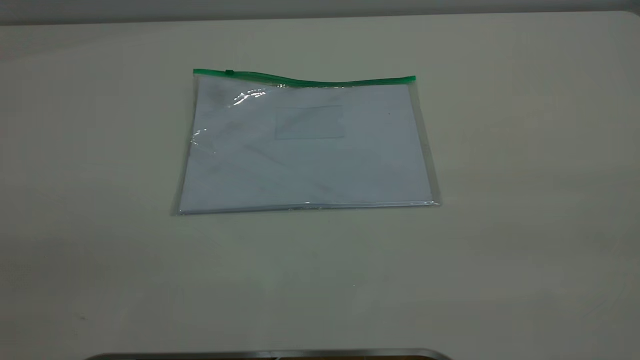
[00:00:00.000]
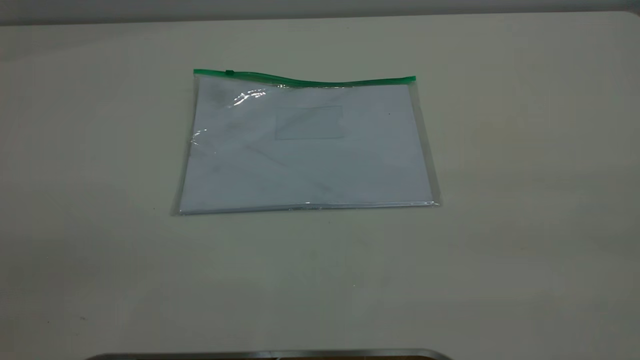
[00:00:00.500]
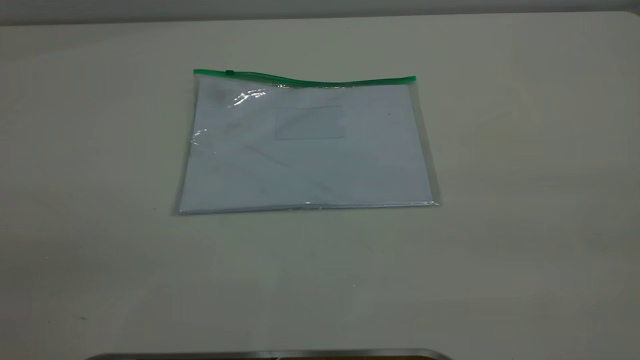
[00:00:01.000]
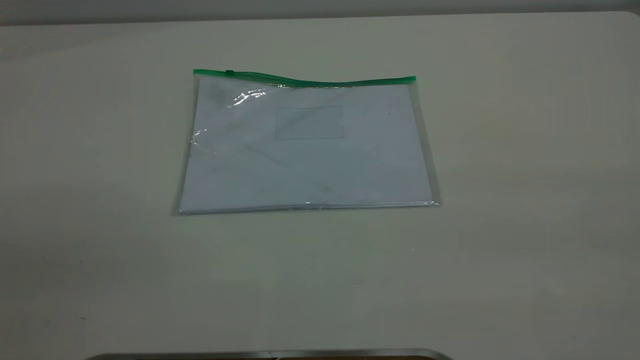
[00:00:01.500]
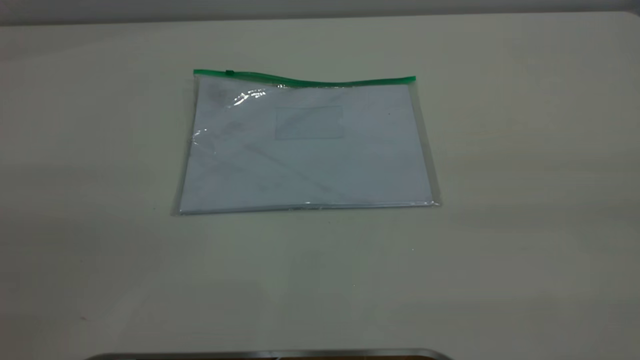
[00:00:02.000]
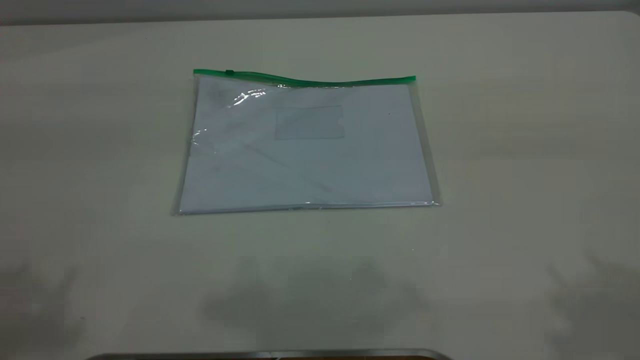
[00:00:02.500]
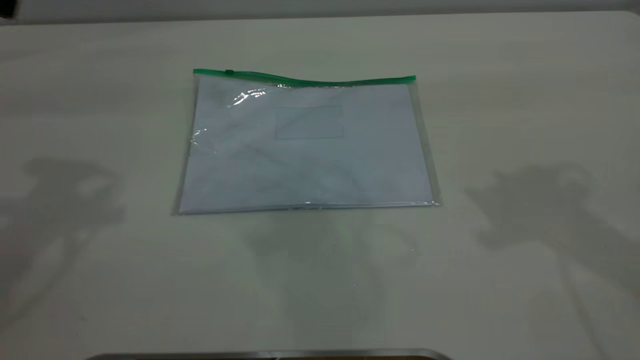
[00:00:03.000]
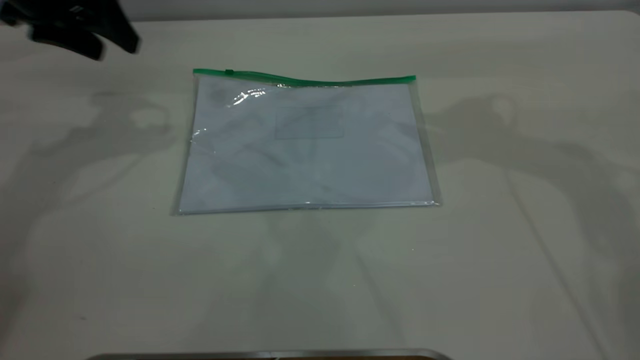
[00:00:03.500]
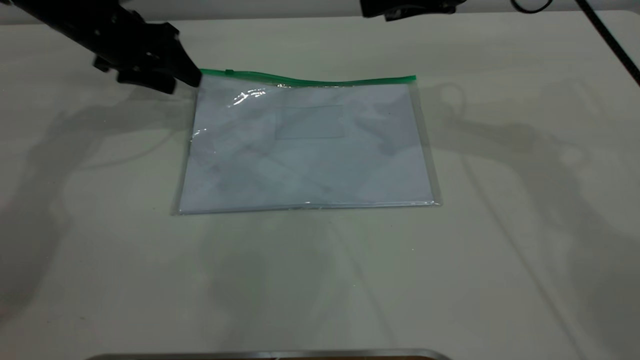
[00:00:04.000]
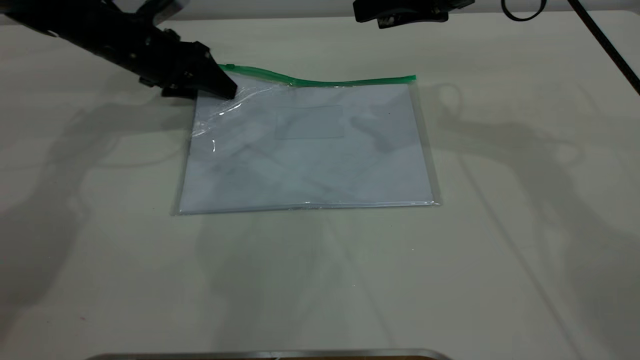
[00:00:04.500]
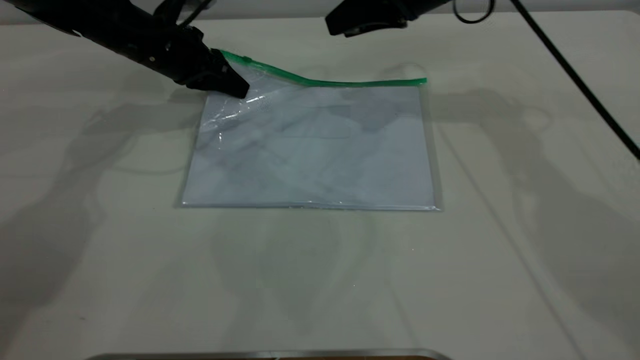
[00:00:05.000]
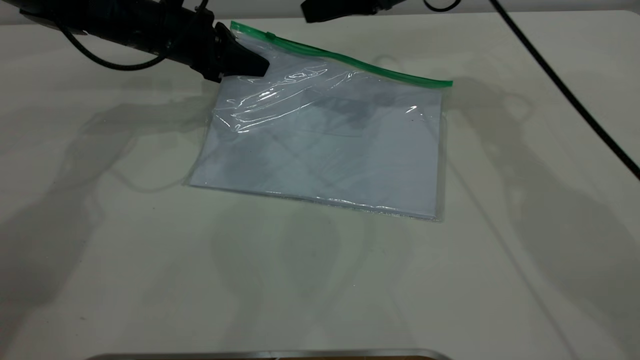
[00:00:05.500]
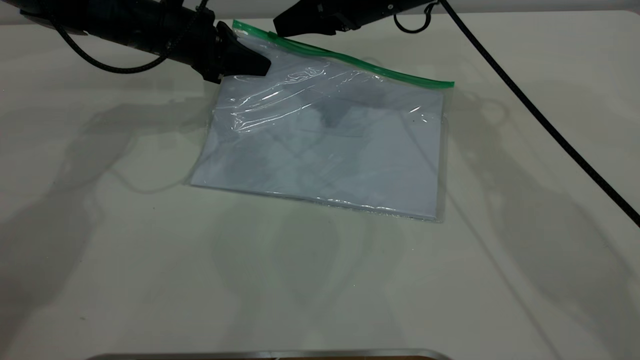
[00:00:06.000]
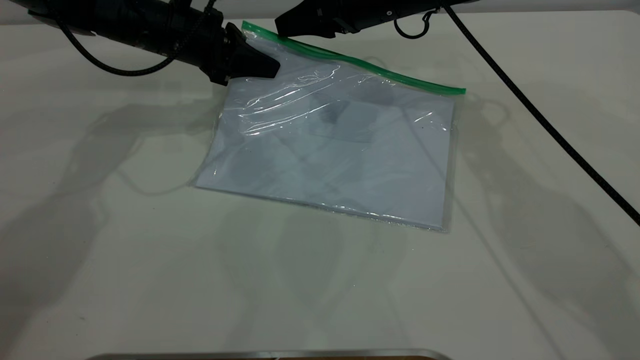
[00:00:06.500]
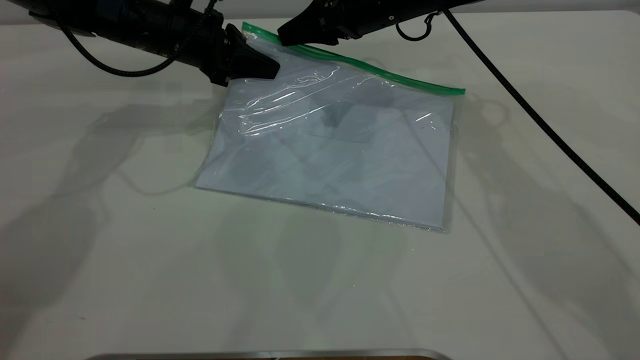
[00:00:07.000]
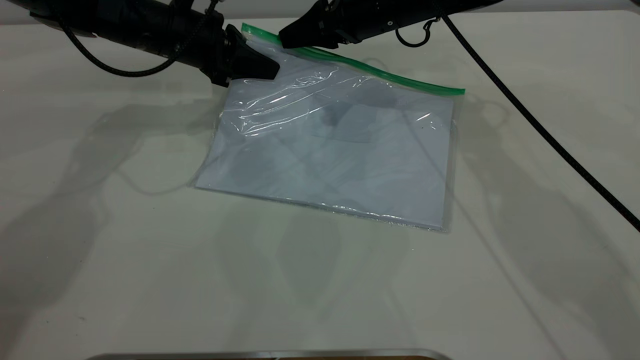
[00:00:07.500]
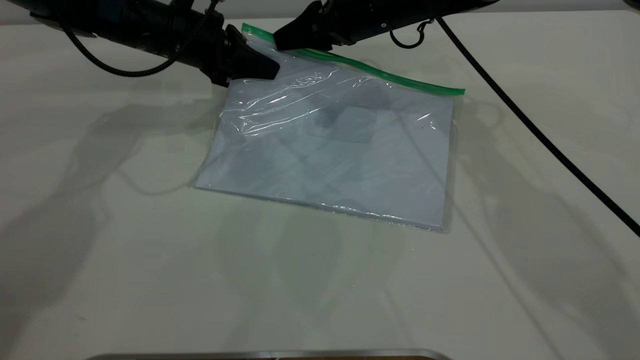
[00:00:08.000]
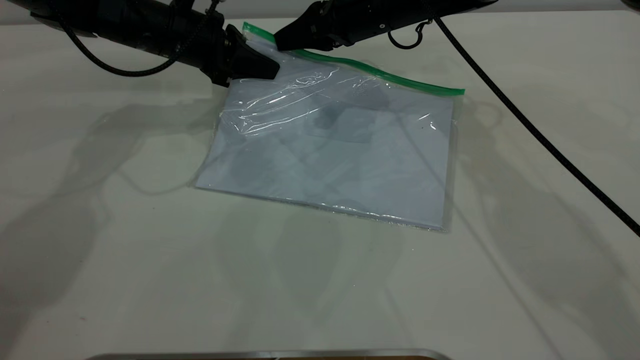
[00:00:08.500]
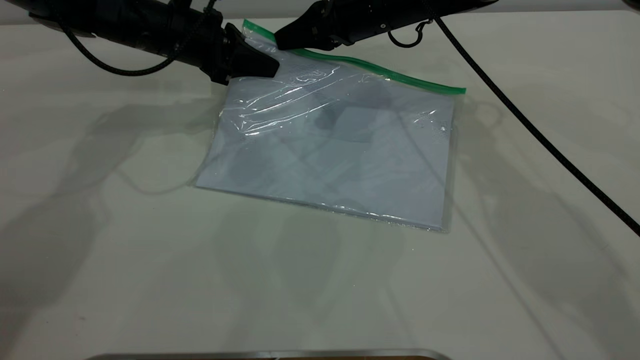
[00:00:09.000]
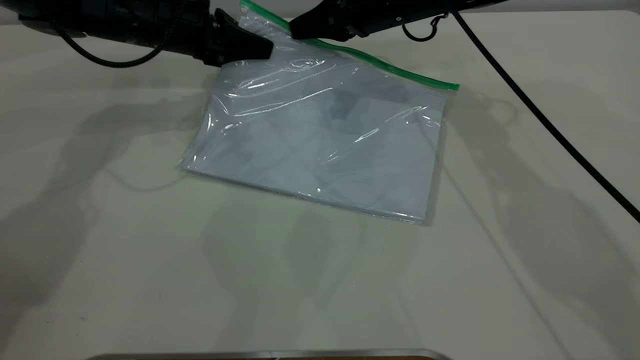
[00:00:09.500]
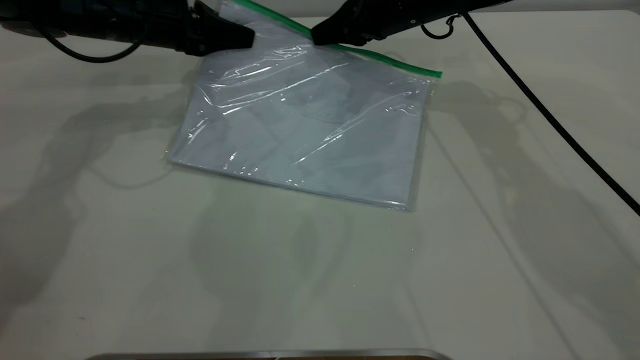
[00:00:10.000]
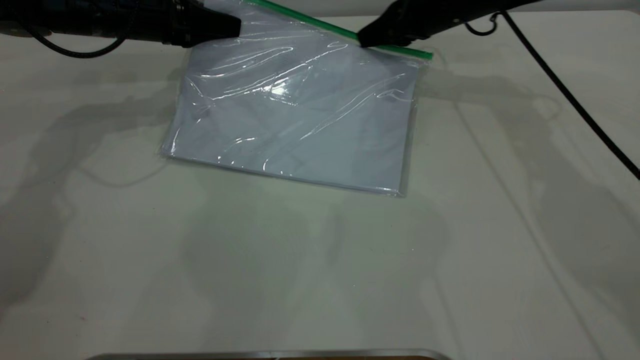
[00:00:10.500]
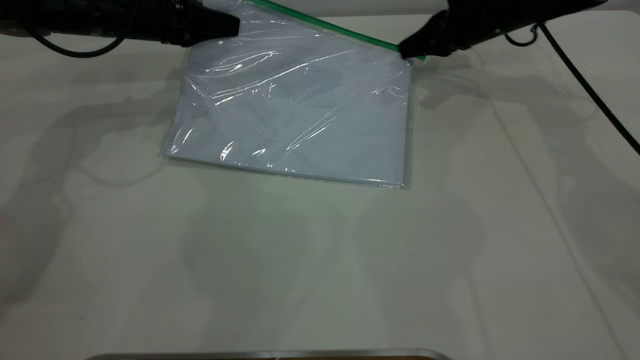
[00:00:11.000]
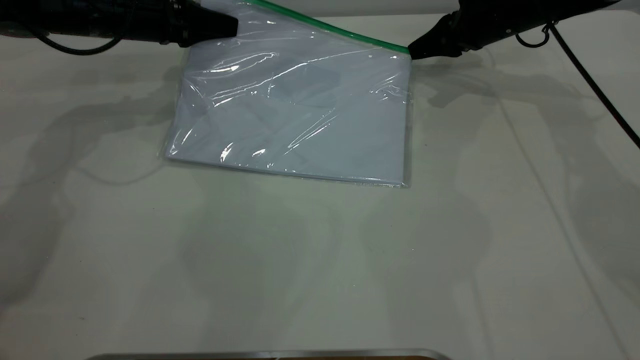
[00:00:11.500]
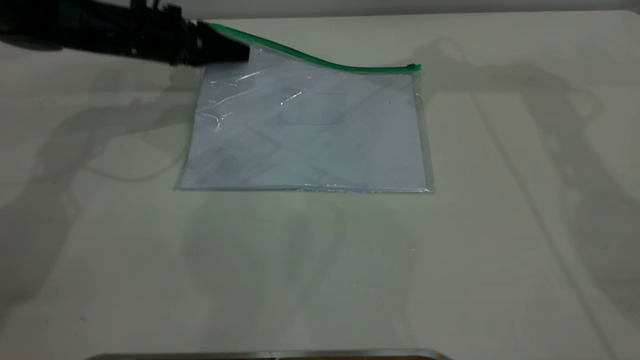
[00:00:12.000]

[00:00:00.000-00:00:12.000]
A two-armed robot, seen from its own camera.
Step, 00:00:00.000 to 00:00:05.000: Pick up the transparent plastic bag with the left gripper.
Step, 00:00:05.500 to 00:00:11.500: Pulling up the zipper on the transparent plastic bag with the right gripper to close it.
00:00:02.000 to 00:00:04.000: Both grippers move forward and downward, about 50 cm.
00:00:04.000 to 00:00:06.000: The right gripper moves to the left, forward and downward, about 15 cm. Meanwhile the left gripper travels to the right by approximately 5 cm, and closes.
00:00:06.000 to 00:00:08.000: The grippers stay close to where they were, moving slightly.
00:00:08.000 to 00:00:10.000: The right gripper ends up roughly 5 cm from where it was, and closes.
00:00:10.000 to 00:00:12.000: The left gripper opens; the right gripper heads upward, covering about 20 cm, and opens its fingers.
